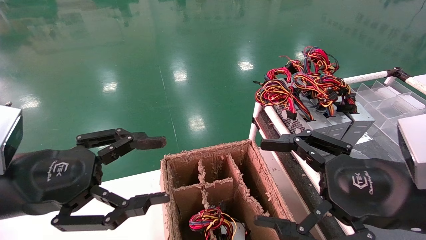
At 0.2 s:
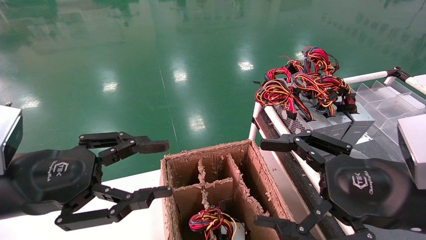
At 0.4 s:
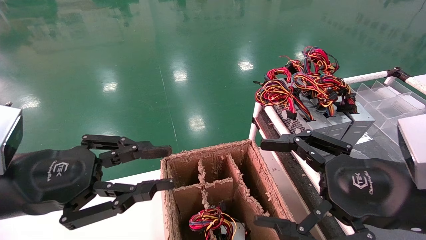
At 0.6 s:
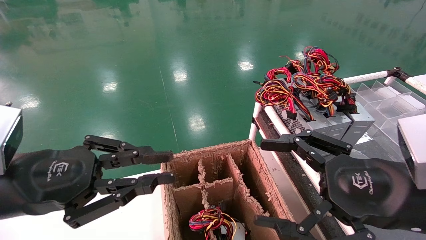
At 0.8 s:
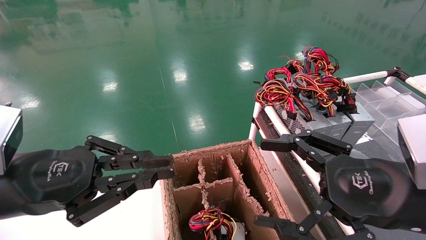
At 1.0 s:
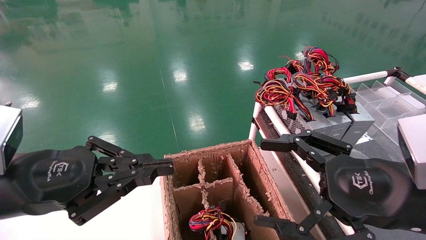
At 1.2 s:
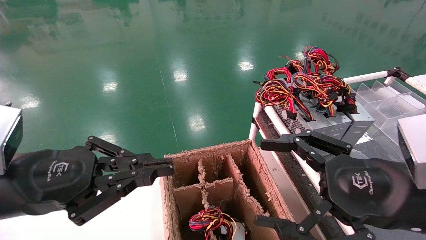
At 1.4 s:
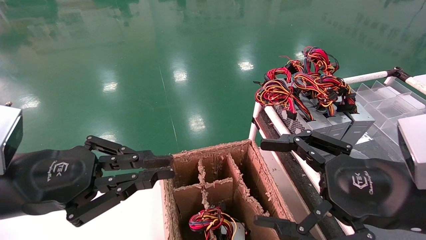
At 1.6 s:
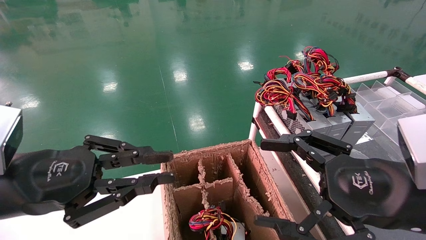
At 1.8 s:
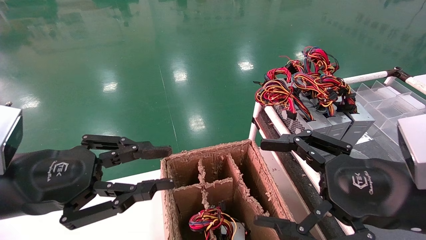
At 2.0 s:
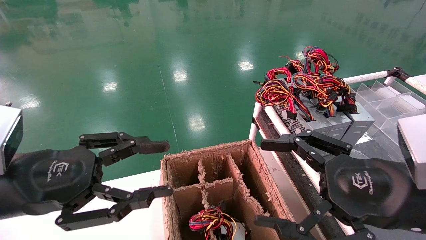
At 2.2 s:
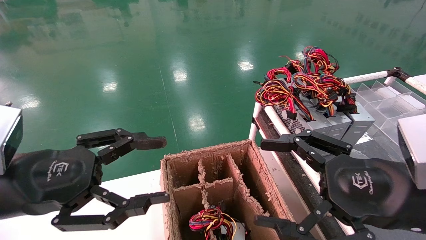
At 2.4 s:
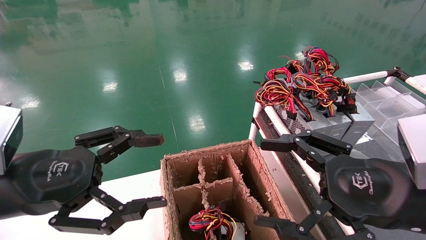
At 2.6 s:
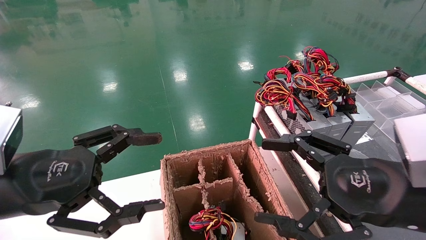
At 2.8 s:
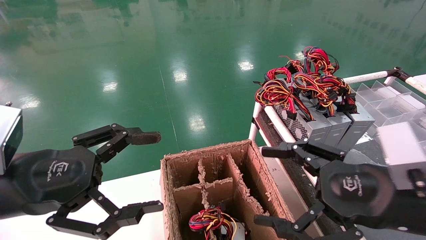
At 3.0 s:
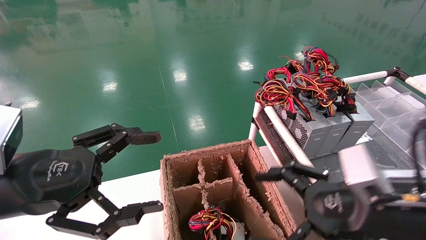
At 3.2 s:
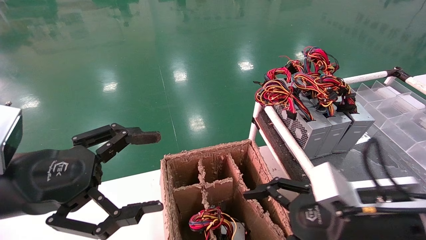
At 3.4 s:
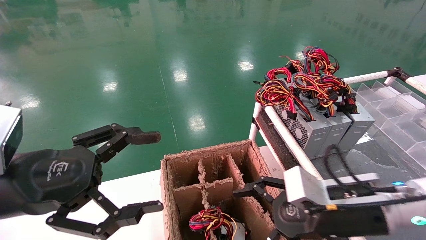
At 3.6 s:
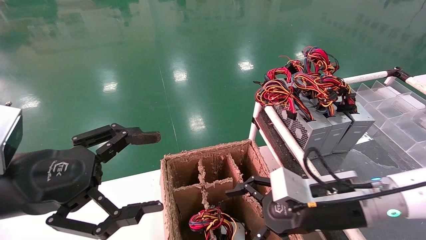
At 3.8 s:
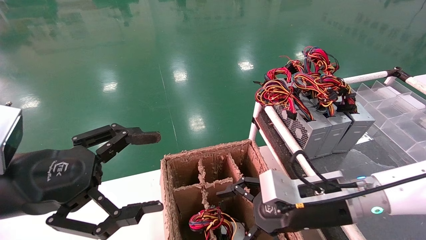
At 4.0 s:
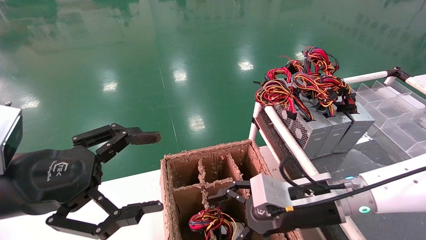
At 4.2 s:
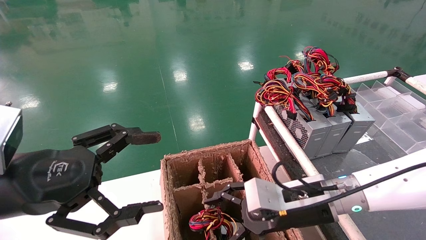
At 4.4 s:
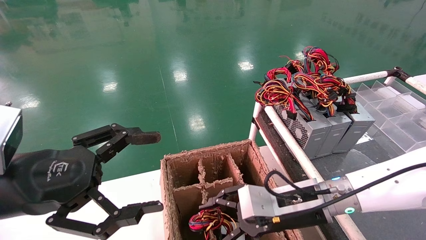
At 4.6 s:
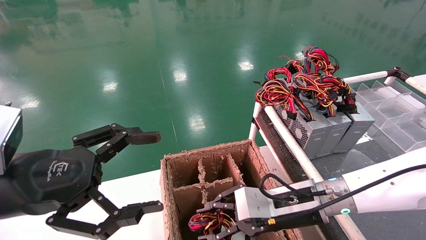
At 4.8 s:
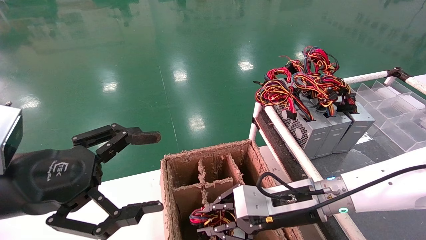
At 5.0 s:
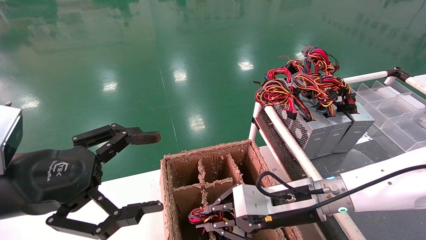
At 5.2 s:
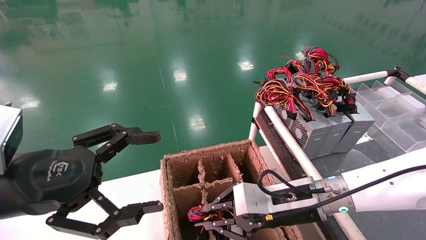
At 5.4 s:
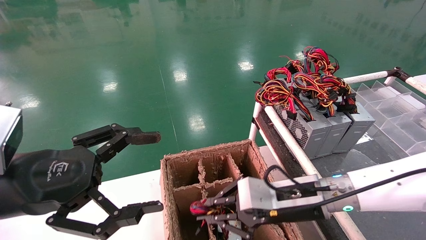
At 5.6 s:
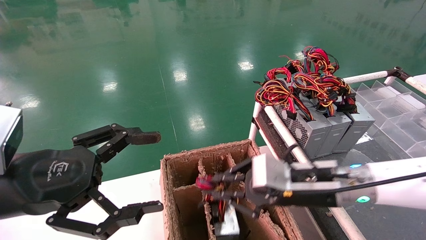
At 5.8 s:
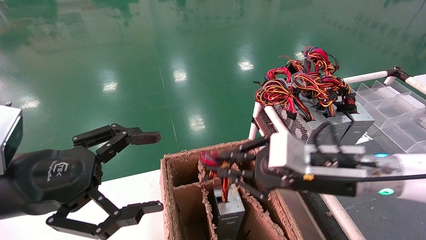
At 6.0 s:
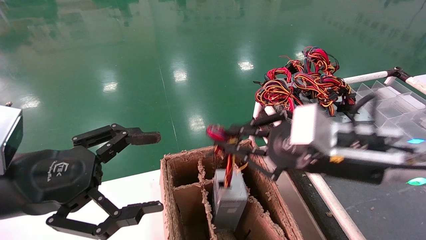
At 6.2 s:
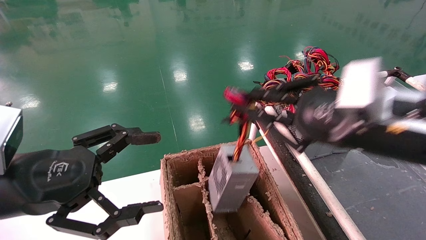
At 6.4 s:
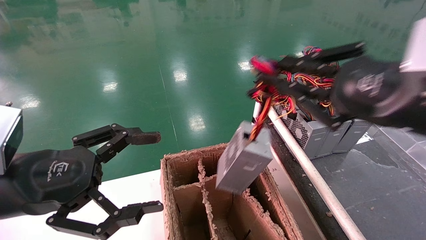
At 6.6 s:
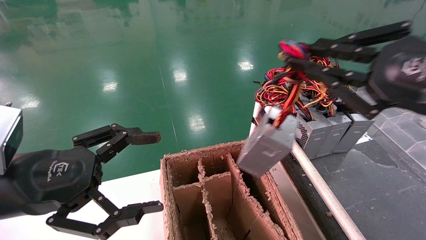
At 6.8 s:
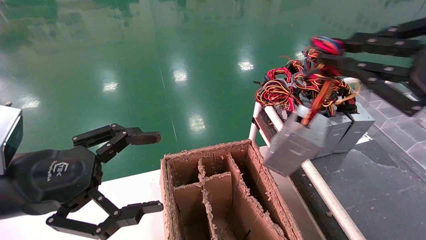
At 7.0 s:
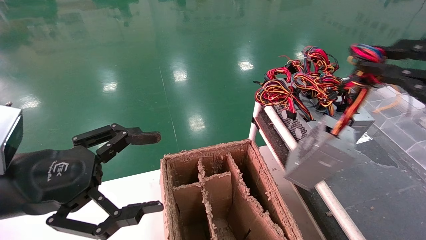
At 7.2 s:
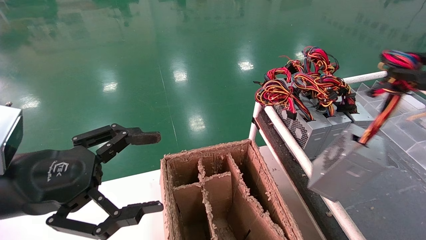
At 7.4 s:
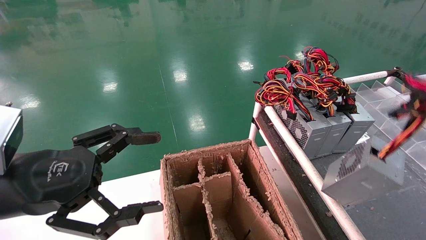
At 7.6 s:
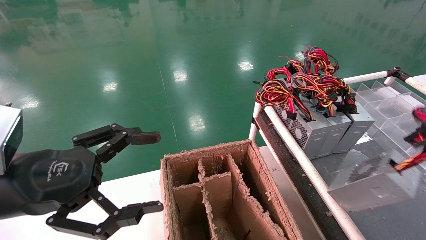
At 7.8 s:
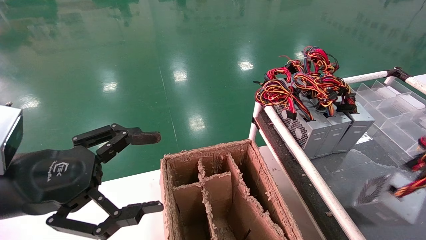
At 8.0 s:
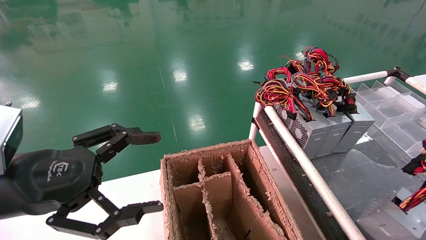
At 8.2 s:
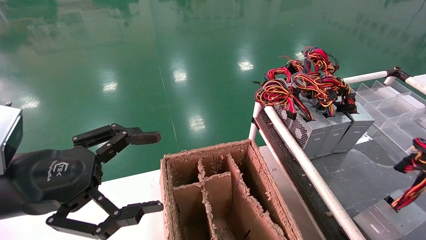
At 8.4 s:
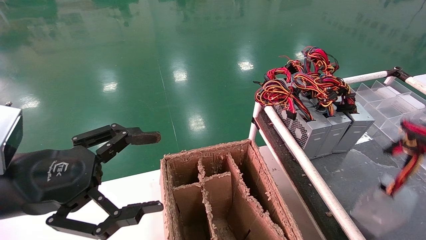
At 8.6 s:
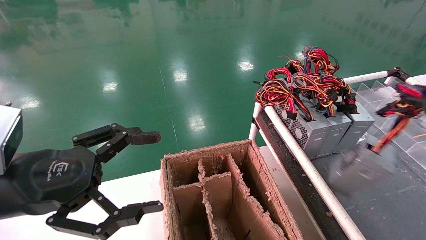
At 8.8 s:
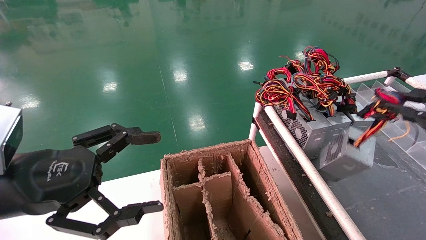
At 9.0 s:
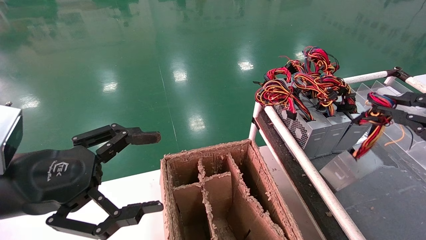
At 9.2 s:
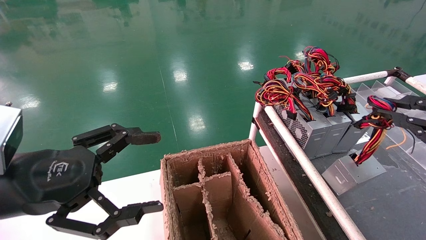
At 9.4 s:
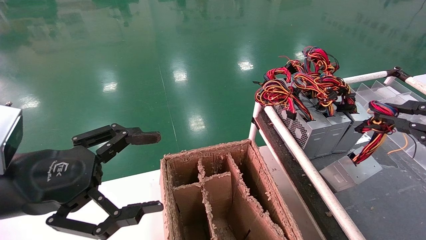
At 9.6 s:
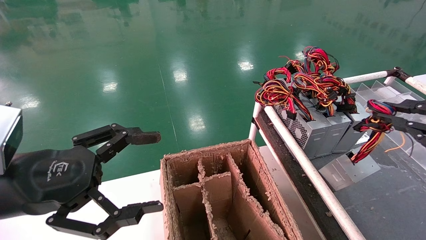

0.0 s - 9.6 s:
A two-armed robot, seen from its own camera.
Step, 1.4 s - 5.0 s: Grab and lift the power supply from the large box.
0.0 s - 1.6 s: The left gripper closes up.
1.6 s - 3.2 s: The right gripper shifts some 5 cm downward, while the left gripper opens up.
3.2 s - 4.8 s: The right gripper shifts approximately 10 cm to the left and forward, and closes.
4.8 s - 6.4 s: The right gripper travels upward, to the right and backward by some 25 cm.
6.4 s - 8.0 s: The right gripper travels to the right and backward by approximately 20 cm.
8.0 s - 9.6 s: The right gripper goes about 10 cm forward.

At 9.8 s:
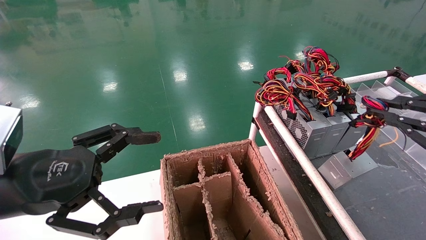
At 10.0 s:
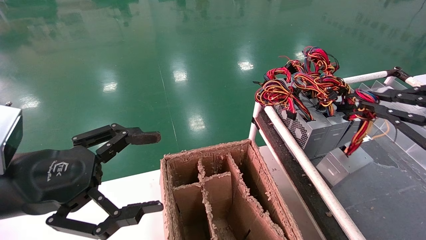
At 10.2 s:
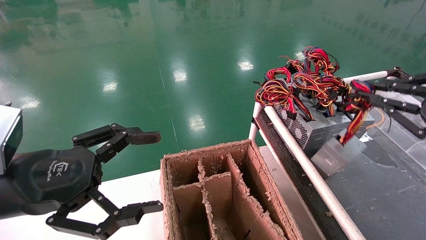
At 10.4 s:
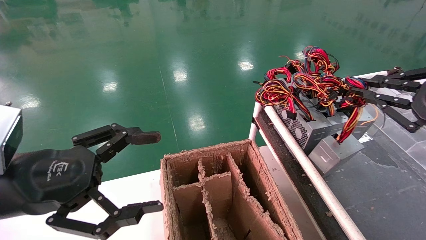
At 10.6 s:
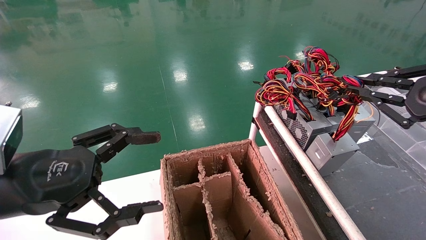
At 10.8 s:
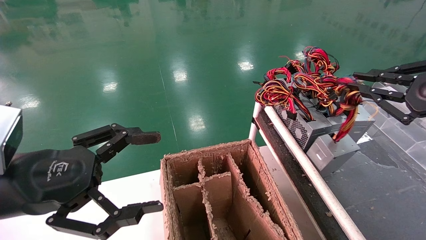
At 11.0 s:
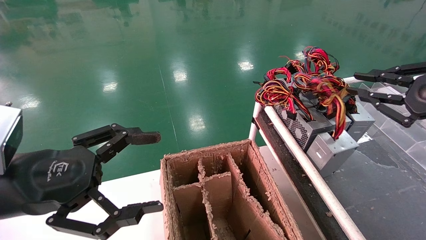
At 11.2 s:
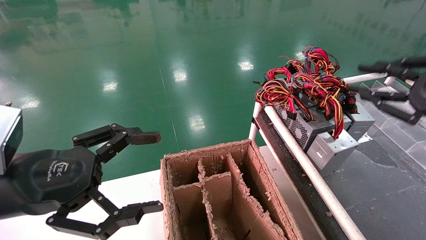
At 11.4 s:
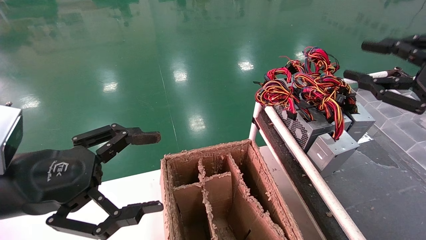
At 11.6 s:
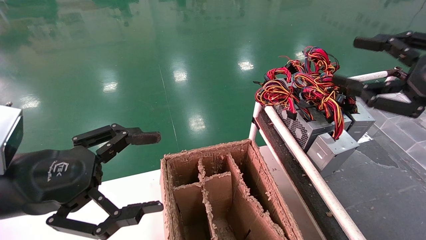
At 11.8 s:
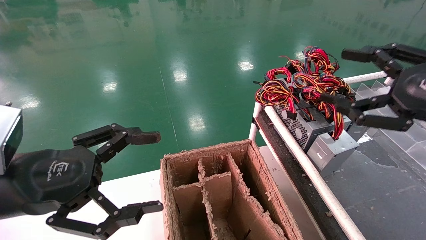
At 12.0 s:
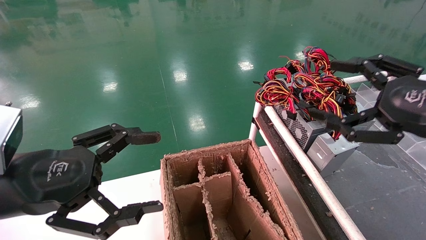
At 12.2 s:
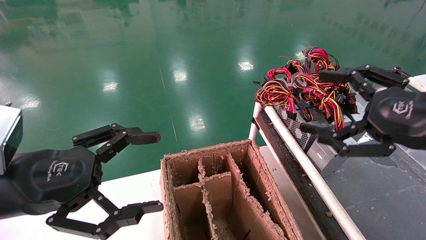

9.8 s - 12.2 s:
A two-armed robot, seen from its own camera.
9.8 s - 11.0 s: The right gripper heads forward, covering about 5 cm.
11.0 s - 12.2 s: The right gripper goes roughly 5 cm to the left, and opens.
